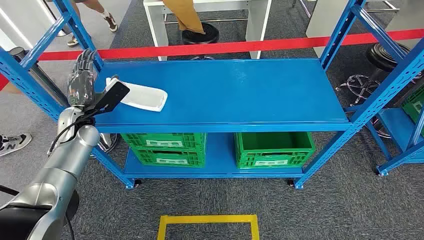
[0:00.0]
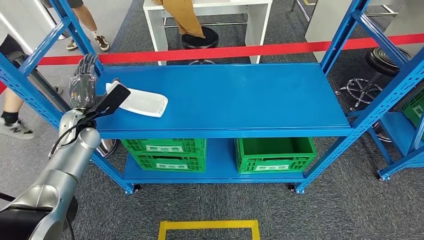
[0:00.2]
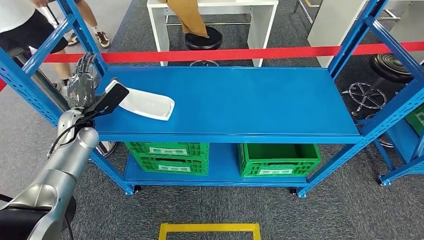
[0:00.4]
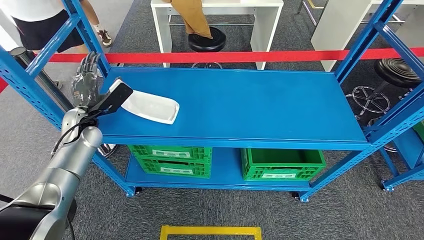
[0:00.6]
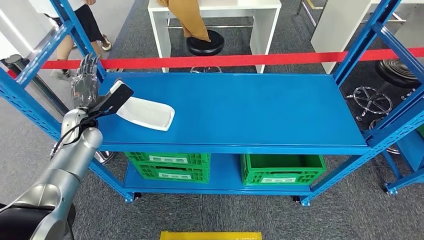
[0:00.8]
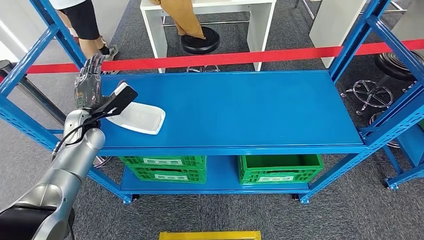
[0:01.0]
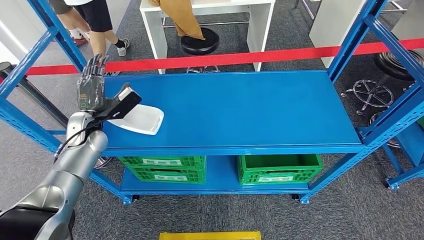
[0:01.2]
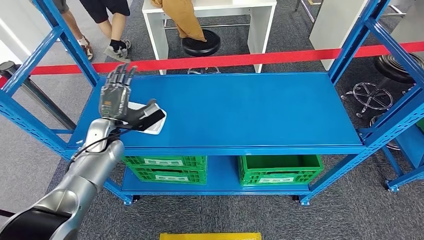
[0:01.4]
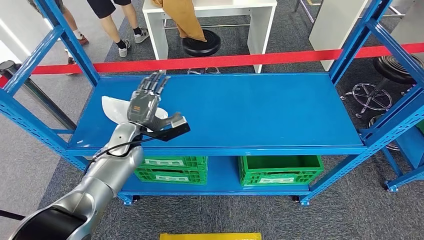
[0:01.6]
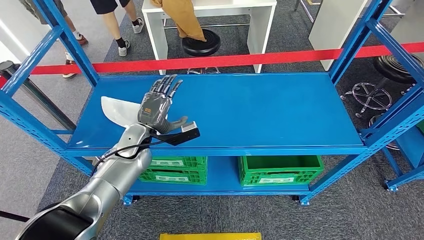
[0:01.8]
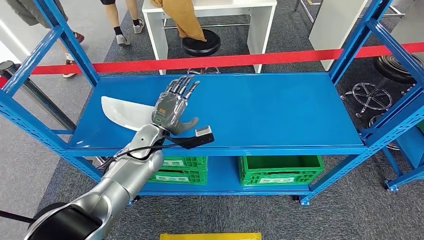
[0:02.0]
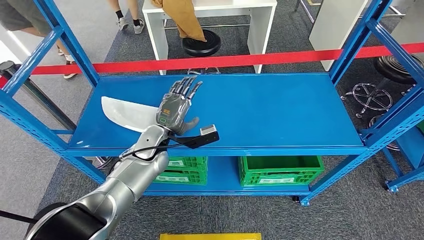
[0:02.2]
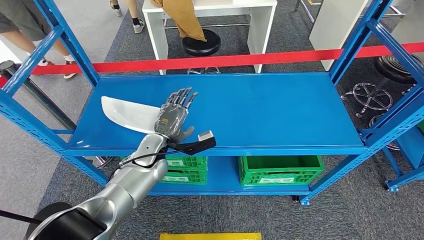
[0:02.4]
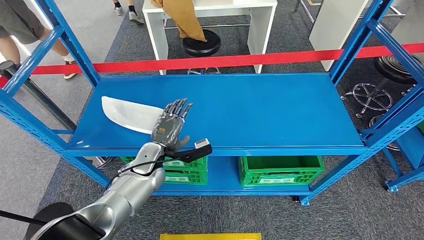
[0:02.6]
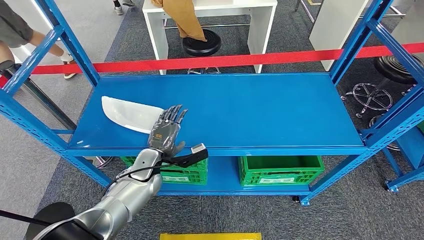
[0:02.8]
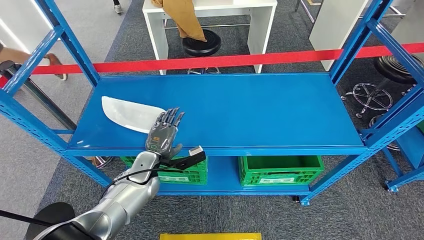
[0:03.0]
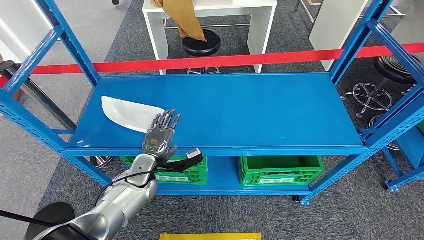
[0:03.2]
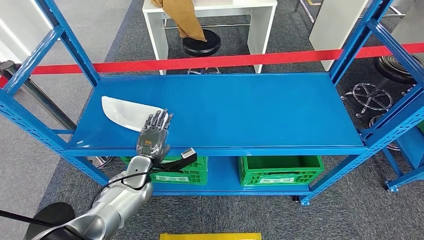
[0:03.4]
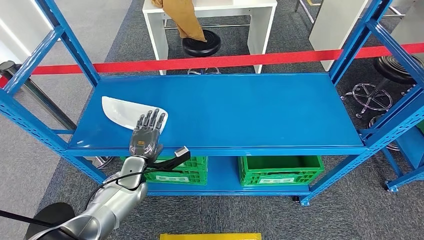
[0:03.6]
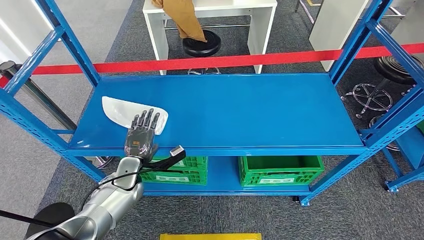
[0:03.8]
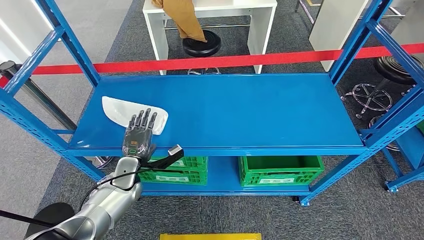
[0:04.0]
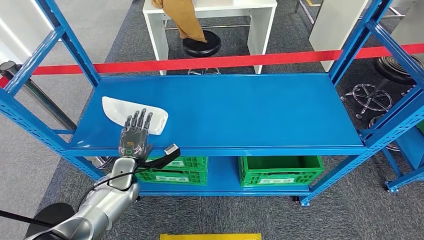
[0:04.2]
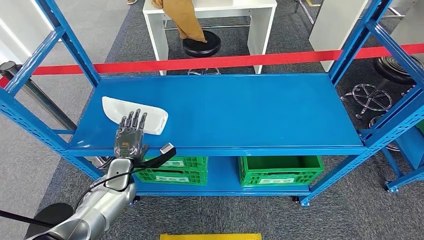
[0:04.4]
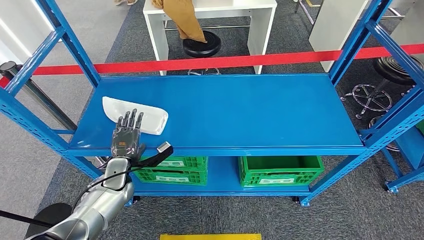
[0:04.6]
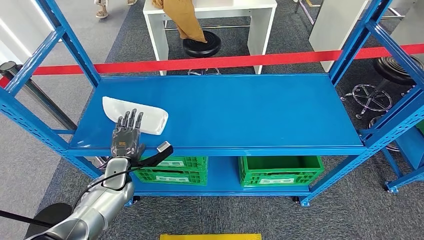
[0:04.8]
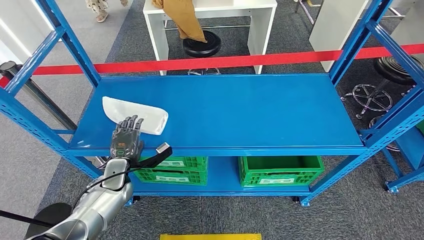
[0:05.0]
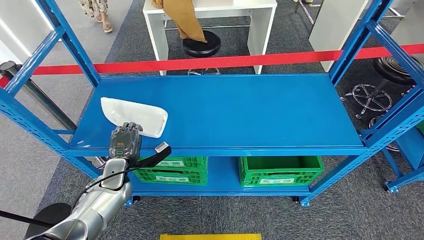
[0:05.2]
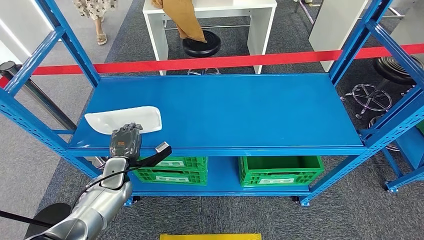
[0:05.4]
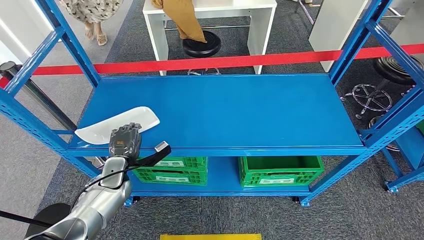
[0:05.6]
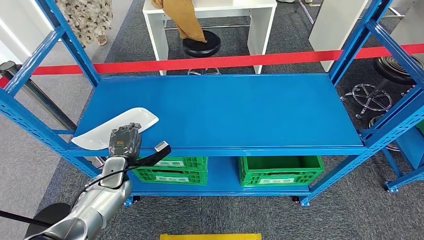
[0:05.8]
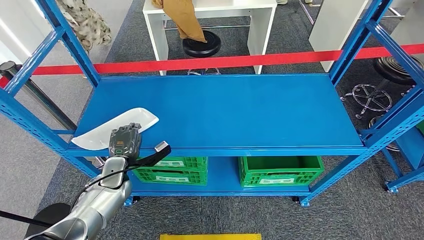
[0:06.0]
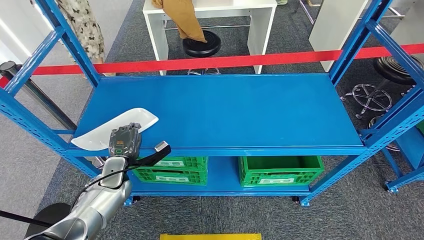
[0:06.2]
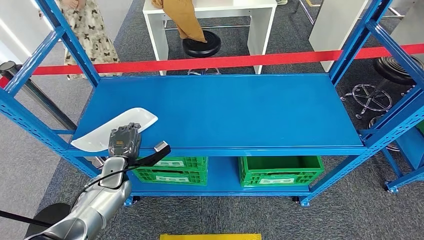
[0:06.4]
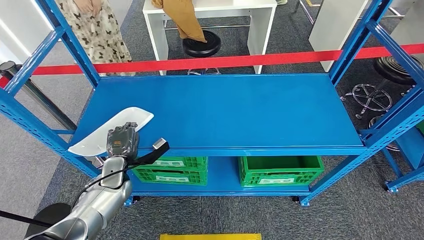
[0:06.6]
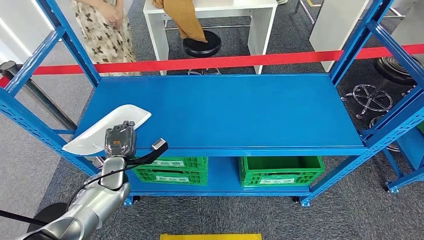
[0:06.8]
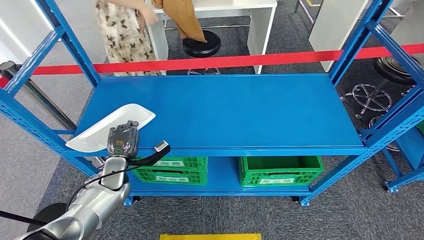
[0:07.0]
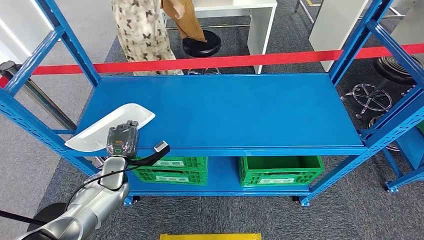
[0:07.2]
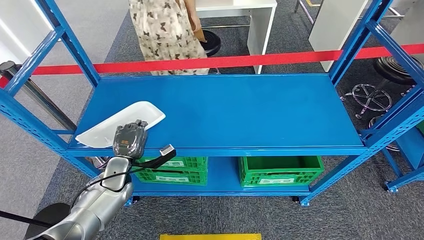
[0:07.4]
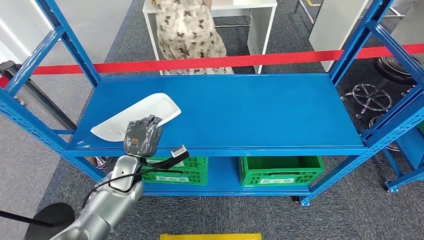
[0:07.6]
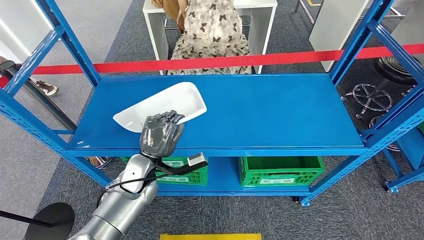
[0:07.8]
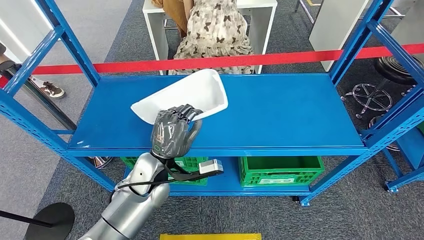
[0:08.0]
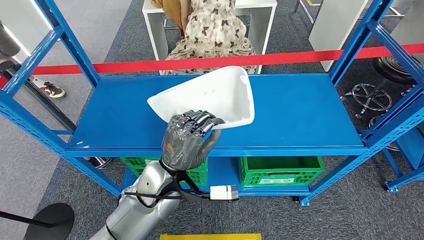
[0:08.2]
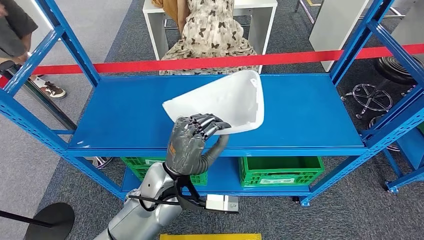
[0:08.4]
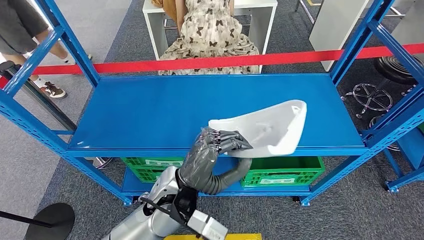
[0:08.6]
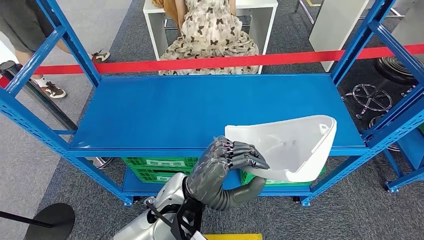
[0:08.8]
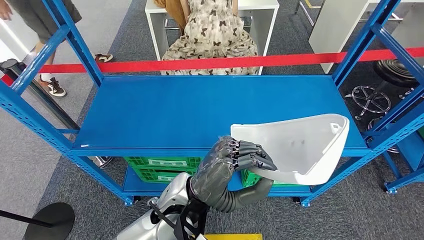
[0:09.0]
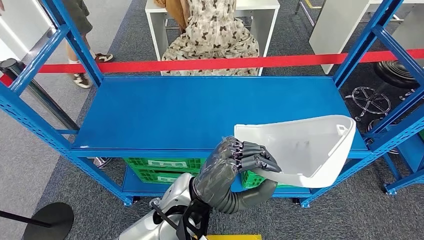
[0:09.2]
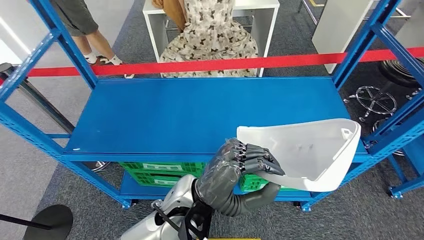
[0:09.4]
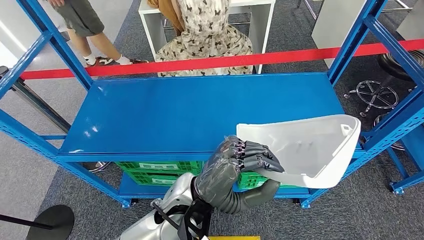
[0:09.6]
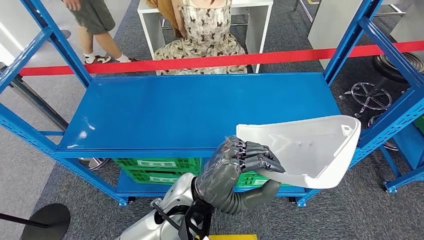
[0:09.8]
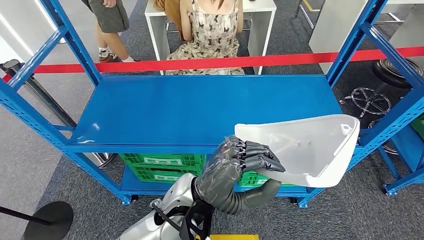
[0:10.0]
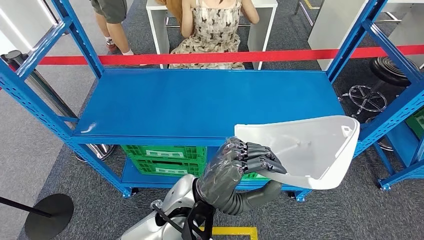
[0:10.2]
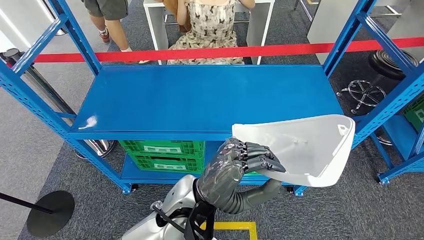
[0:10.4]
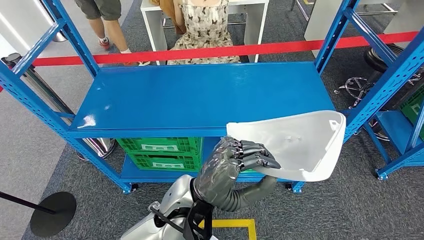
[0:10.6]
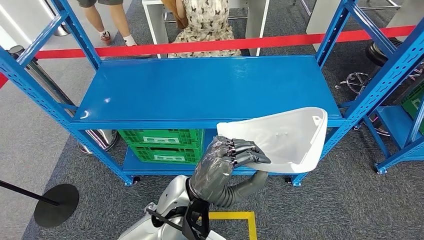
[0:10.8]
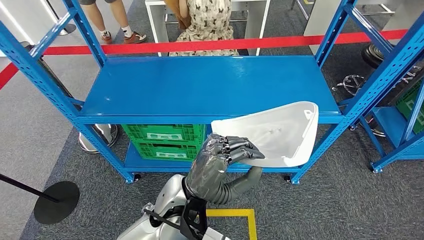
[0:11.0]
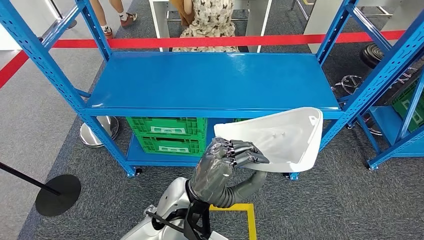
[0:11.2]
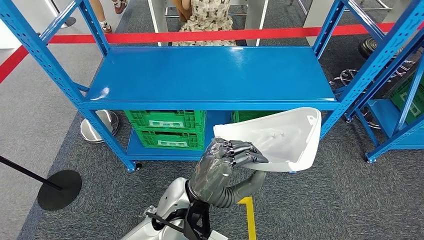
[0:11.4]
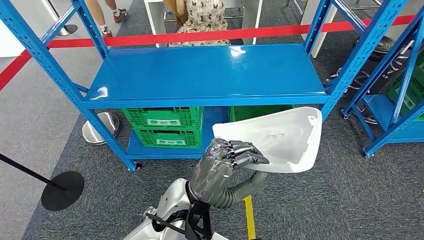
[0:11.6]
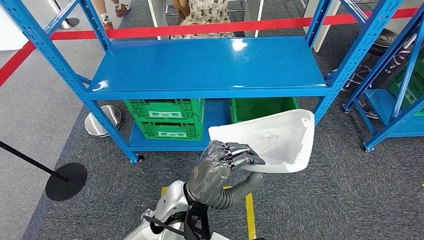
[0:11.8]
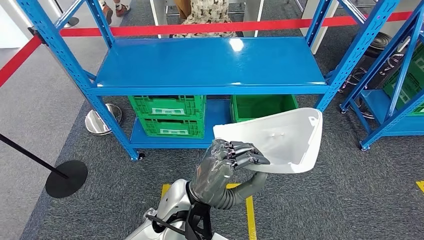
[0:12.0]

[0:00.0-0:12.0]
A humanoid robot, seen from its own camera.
Step, 0:00.0 to 0:08.8: Pick up the small component from the shelf.
0:01.6 to 0:03.0: The left hand shifts roughly 10 cm downward.
0:03.0 to 0:04.4: The left hand travels to the left by some 10 cm.
0:04.4 to 0:06.0: There are only small adjustments of the hands.
0:06.0 to 0:07.6: The left hand moves about 5 cm.

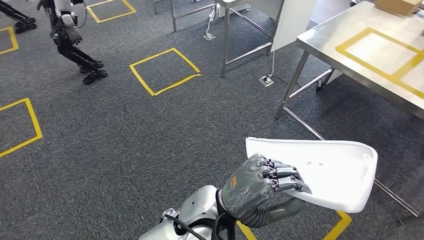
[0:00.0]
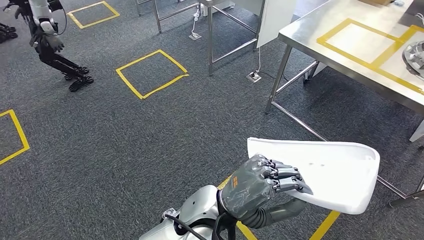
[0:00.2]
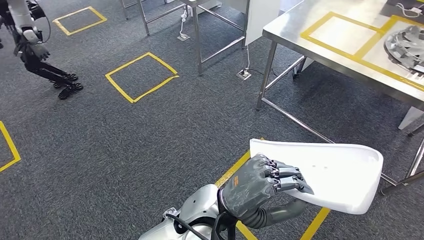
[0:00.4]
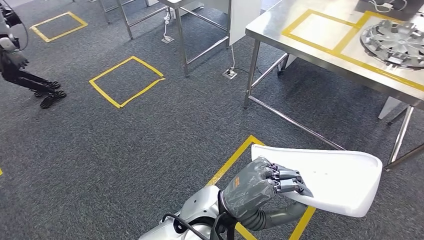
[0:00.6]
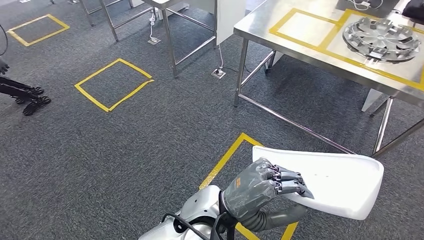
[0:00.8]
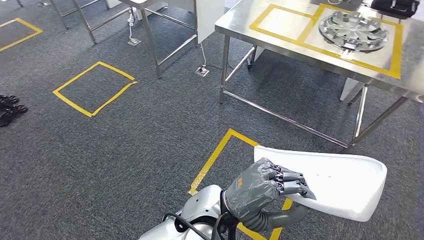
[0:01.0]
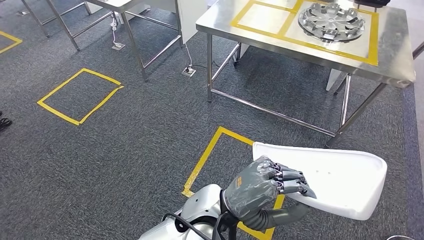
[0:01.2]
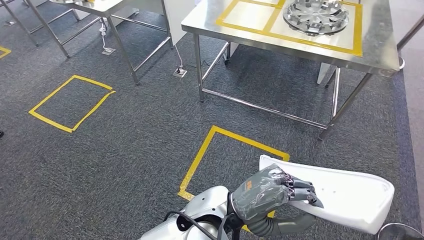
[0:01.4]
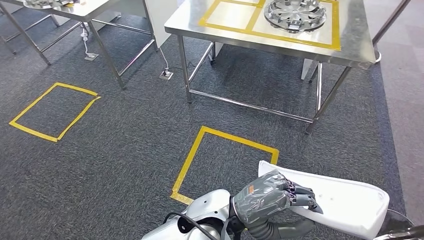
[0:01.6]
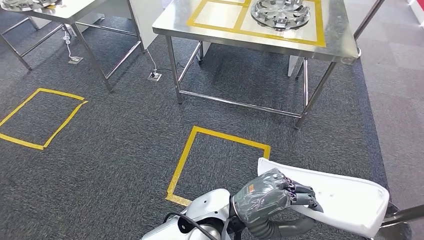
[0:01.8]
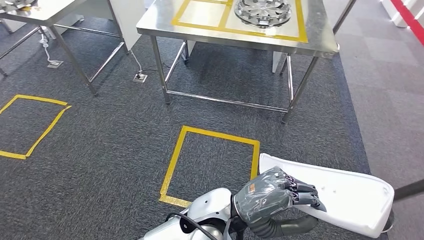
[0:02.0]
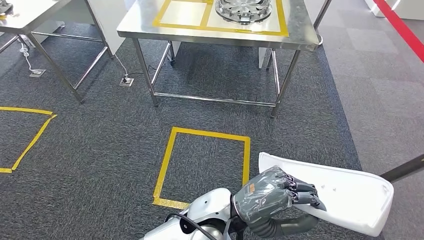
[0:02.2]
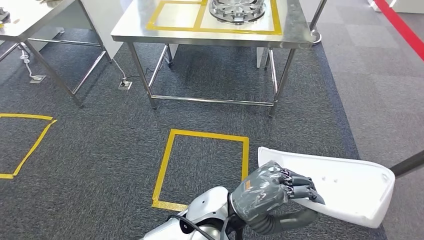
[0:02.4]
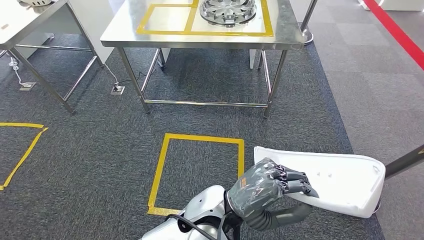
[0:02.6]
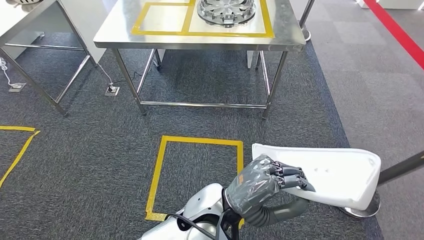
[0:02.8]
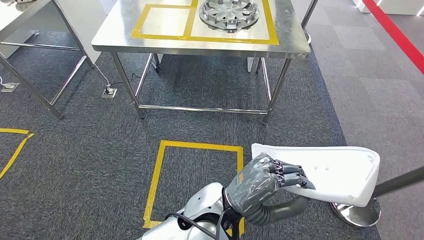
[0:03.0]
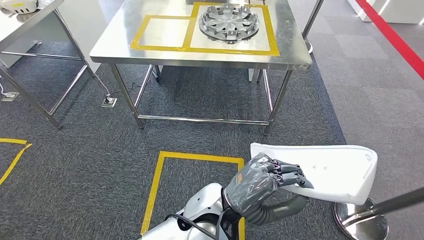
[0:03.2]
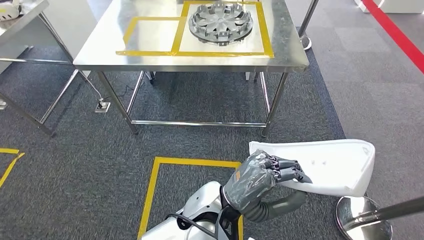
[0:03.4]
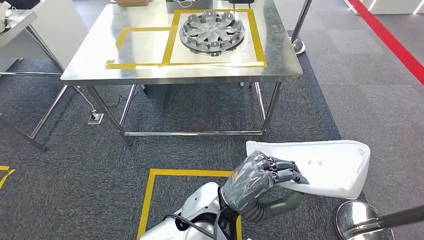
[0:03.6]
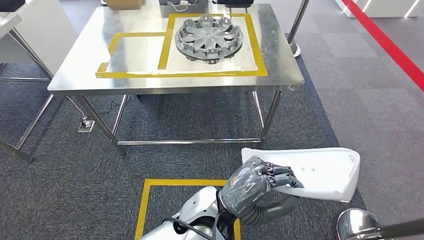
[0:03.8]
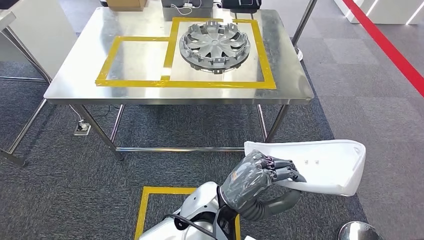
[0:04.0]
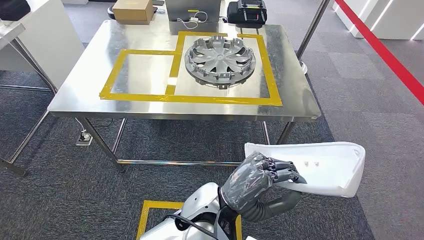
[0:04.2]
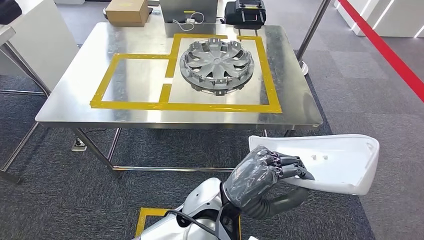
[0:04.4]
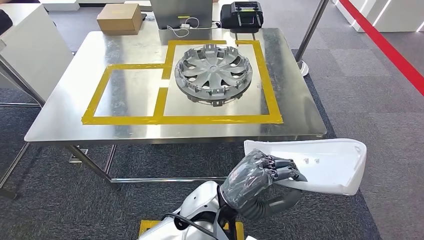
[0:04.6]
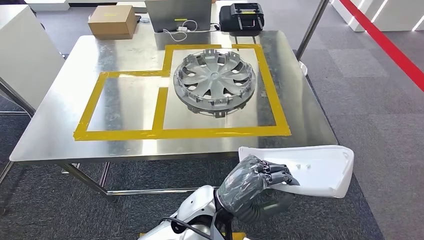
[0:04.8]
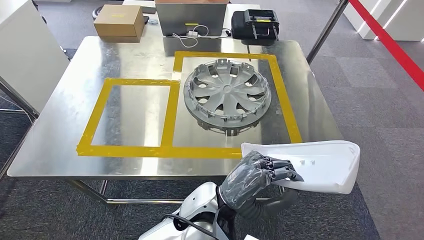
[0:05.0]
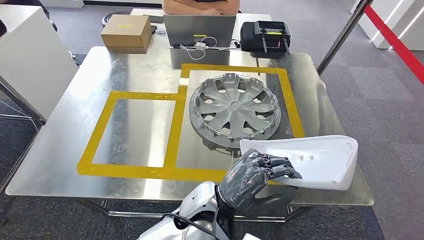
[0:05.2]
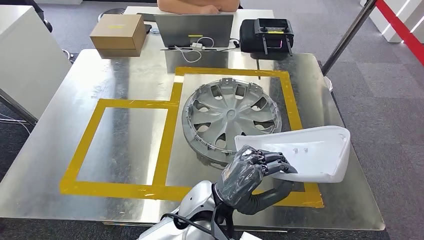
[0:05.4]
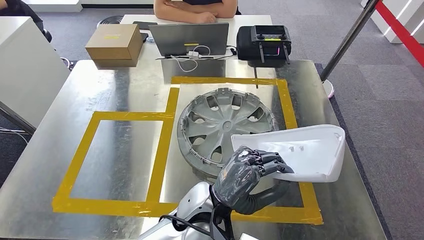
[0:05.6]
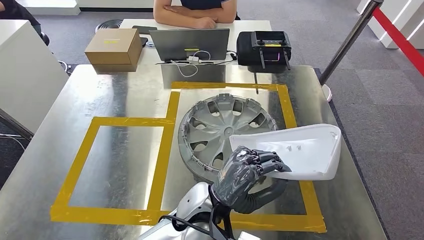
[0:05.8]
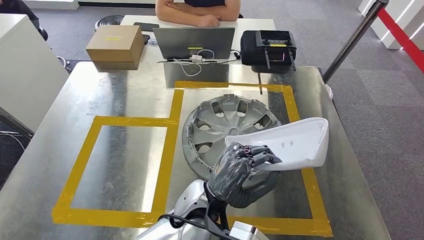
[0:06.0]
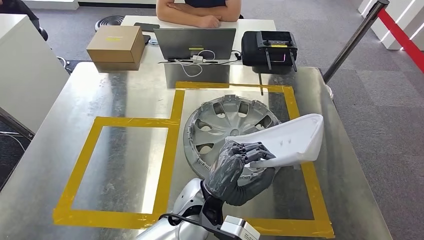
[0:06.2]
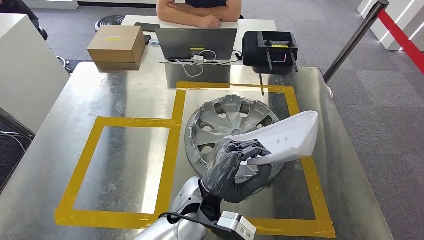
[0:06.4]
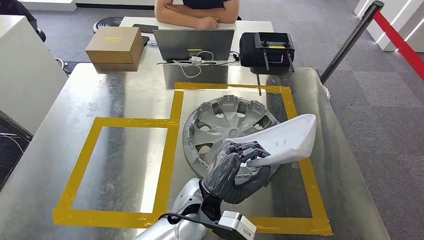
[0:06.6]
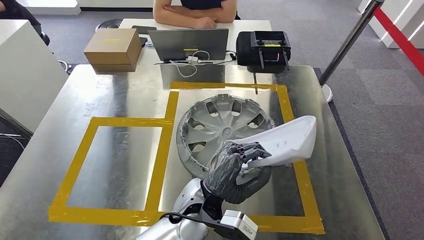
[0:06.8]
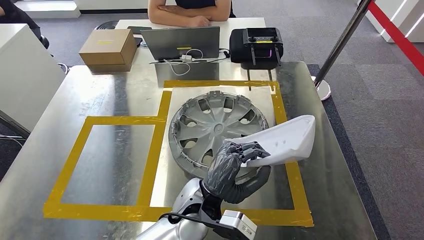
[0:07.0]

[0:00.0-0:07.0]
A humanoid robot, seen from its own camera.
Step, 0:00.0 to 0:05.2: Move the small component to the workbench.
